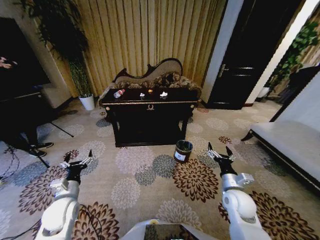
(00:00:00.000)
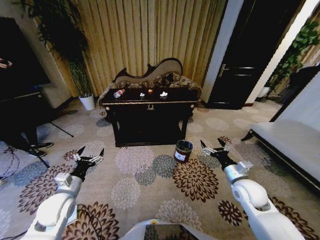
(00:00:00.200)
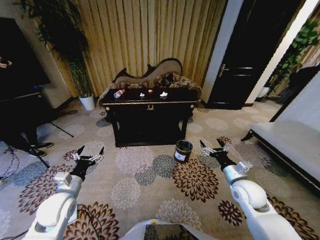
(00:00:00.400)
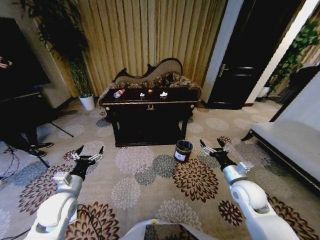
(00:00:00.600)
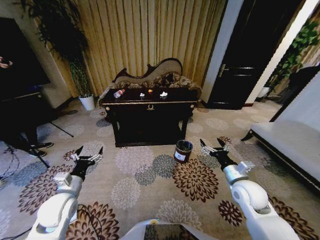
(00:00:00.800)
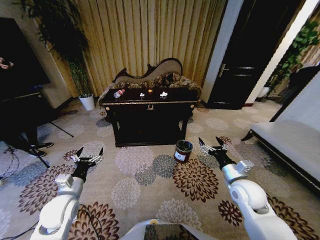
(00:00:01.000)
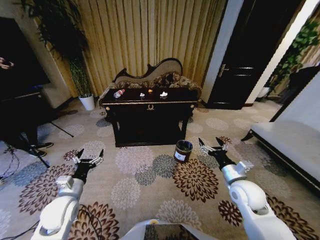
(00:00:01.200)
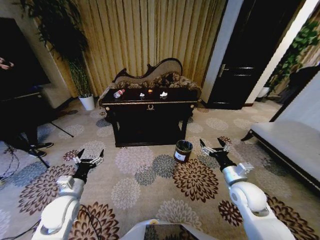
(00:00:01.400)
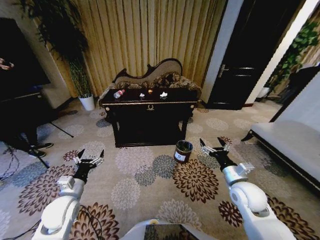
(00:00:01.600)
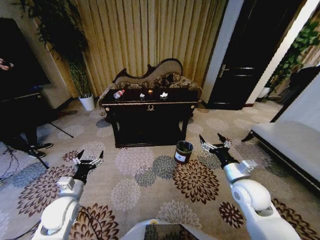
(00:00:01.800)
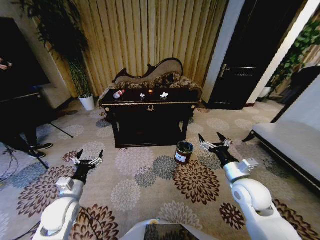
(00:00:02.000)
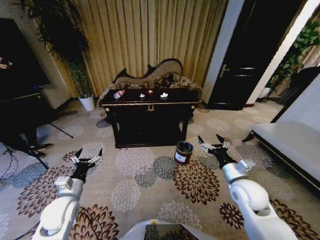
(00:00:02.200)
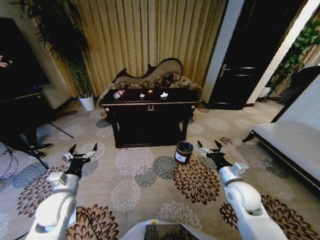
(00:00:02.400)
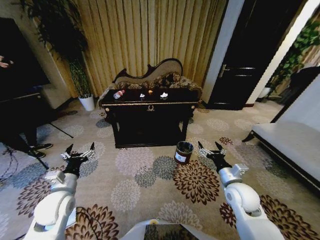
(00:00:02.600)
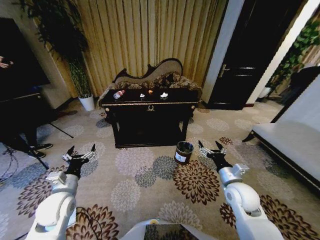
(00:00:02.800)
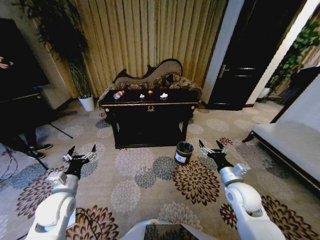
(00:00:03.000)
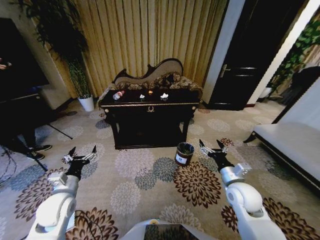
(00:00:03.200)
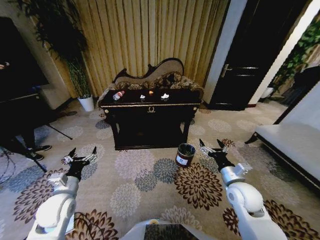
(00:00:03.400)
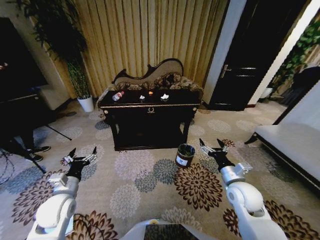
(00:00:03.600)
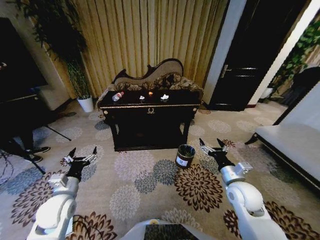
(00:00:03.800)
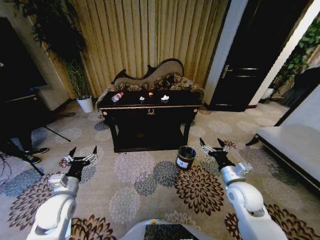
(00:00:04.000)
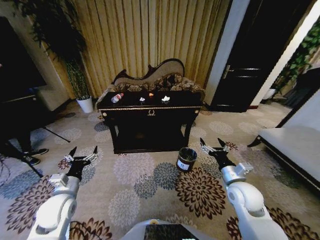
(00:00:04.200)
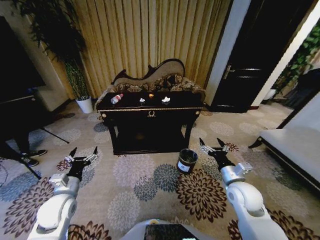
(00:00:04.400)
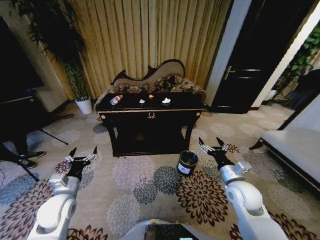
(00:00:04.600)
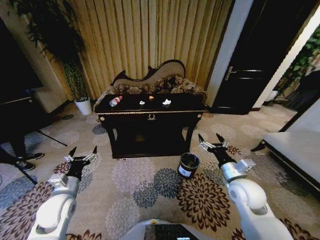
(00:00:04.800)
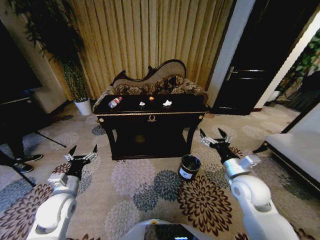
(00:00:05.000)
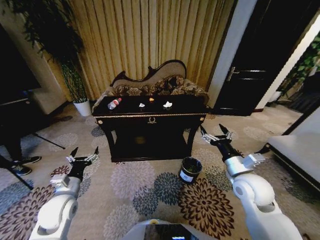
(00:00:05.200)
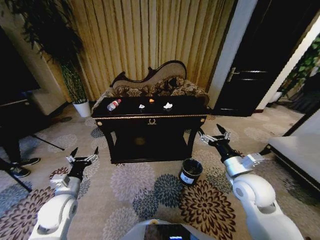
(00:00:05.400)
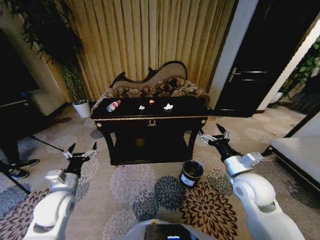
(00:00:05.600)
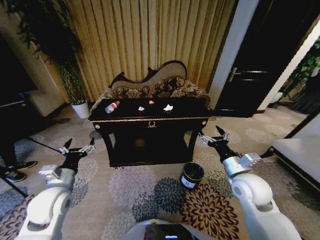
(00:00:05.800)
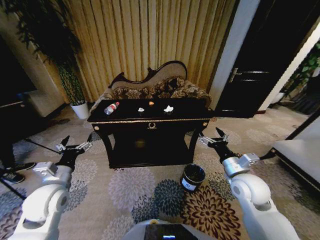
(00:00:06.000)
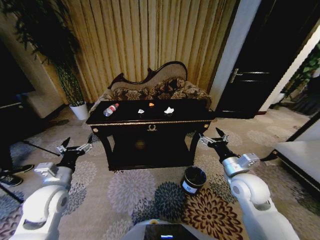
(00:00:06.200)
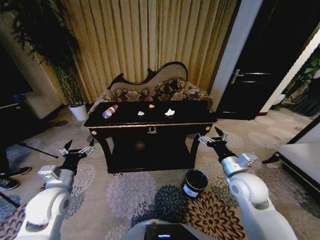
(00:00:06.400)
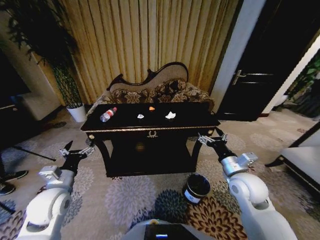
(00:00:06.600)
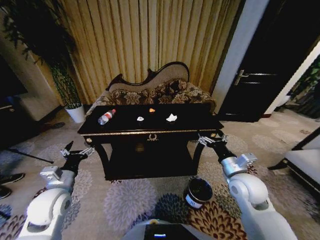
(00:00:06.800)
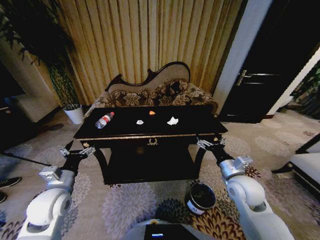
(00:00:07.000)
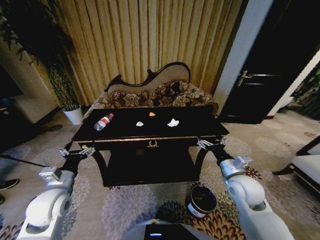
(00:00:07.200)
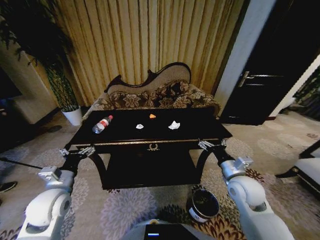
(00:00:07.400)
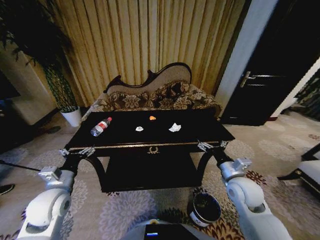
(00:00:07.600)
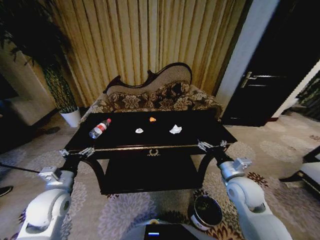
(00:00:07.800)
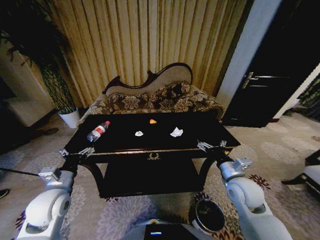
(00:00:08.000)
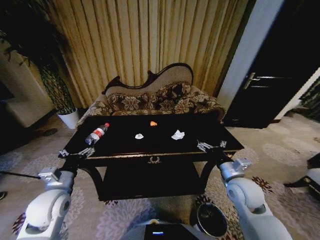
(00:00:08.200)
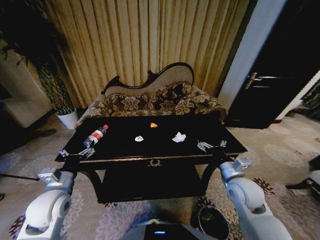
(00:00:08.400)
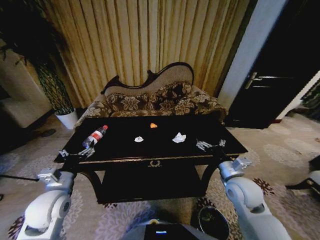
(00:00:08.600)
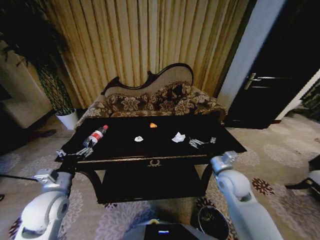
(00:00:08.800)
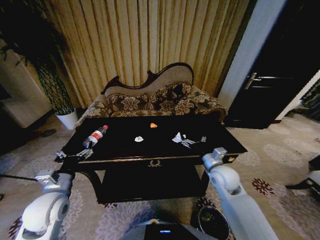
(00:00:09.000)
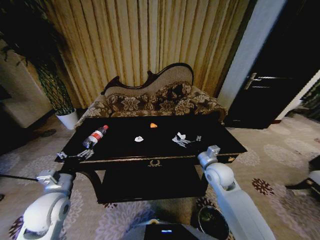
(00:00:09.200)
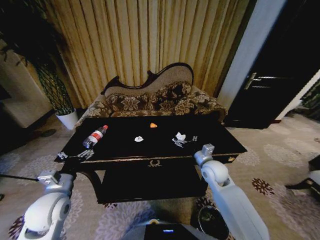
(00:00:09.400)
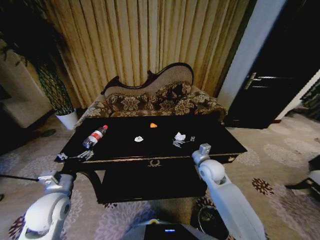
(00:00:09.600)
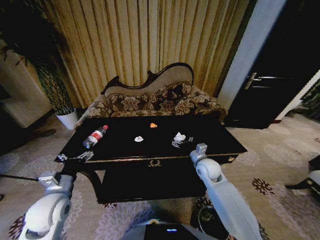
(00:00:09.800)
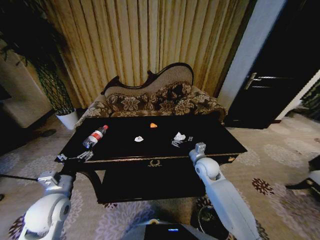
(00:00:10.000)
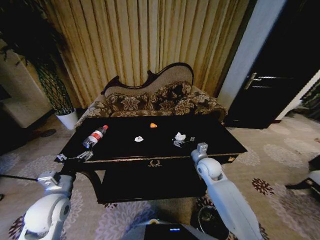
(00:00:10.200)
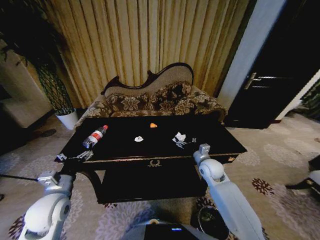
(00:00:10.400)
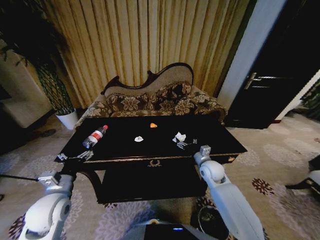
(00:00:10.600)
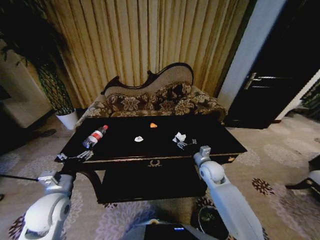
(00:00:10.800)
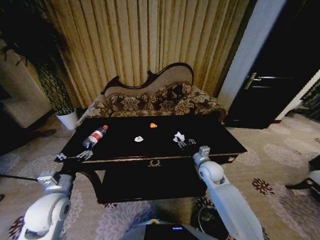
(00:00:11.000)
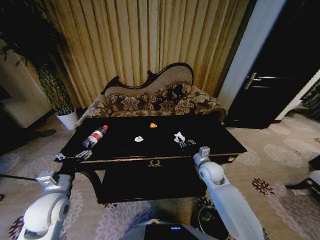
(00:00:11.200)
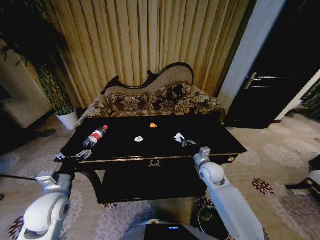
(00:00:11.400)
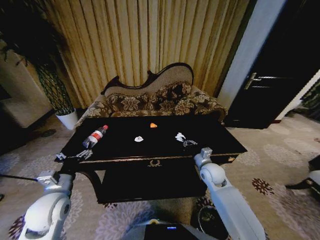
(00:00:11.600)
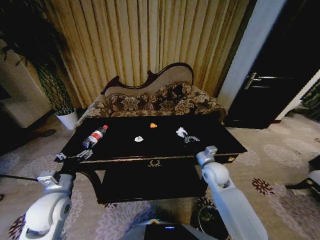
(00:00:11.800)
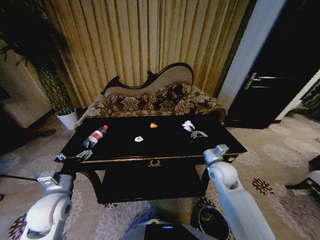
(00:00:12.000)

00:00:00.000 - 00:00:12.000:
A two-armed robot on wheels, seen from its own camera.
Task of the whole recording: Move to the front of the table and place the trash on the table into the trash bin.
00:00:01.600 - 00:00:03.000: There are only small adjustments of the grippers.
00:00:04.400 - 00:00:06.000: The left gripper heads upward, covering approximately 5 cm.
00:00:07.600 - 00:00:09.000: The right gripper moves about 5 cm.
00:00:09.000 - 00:00:10.400: The right gripper is displaced forward and downward by about 10 cm.
00:00:10.400 - 00:00:12.000: The right gripper changes place by approximately 5 cm, and closes its fingers.

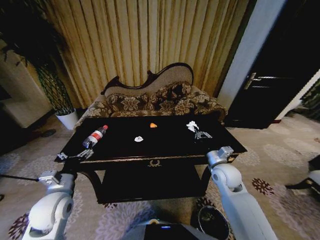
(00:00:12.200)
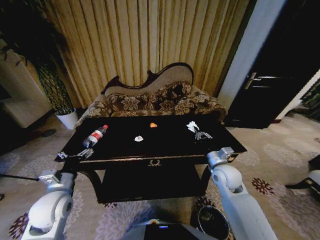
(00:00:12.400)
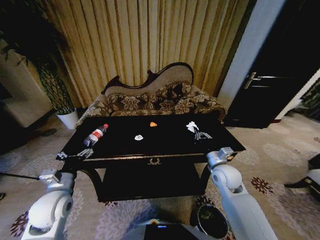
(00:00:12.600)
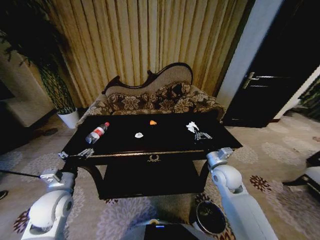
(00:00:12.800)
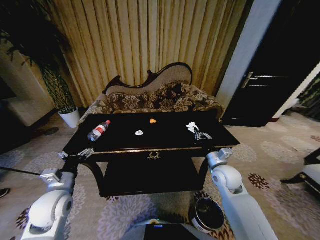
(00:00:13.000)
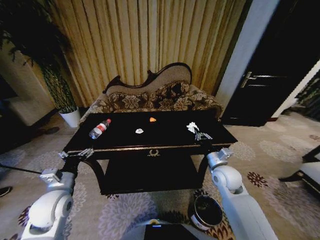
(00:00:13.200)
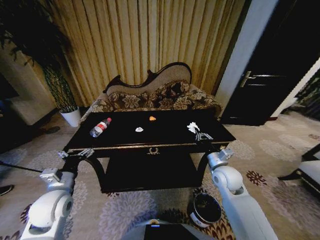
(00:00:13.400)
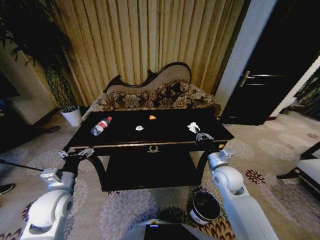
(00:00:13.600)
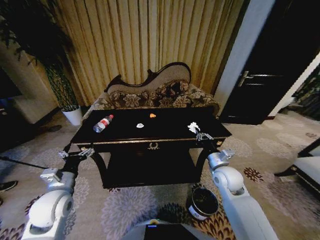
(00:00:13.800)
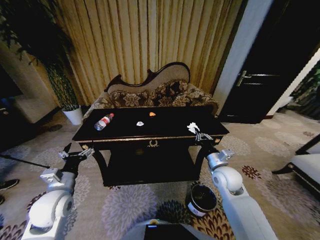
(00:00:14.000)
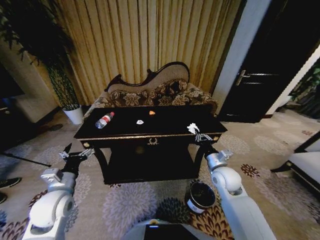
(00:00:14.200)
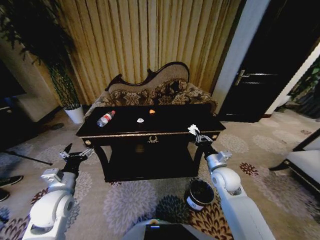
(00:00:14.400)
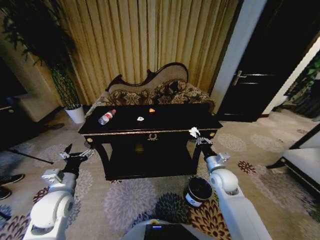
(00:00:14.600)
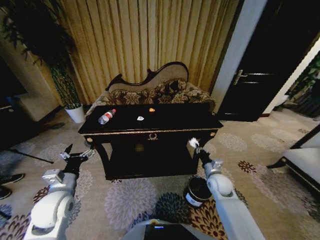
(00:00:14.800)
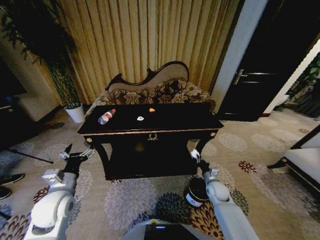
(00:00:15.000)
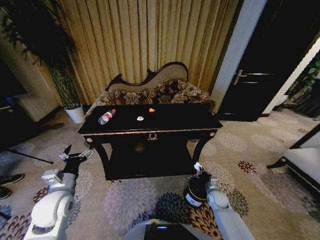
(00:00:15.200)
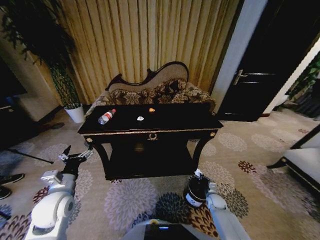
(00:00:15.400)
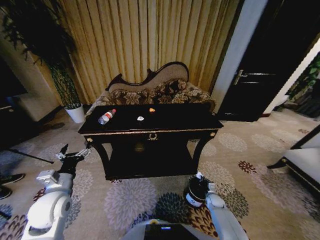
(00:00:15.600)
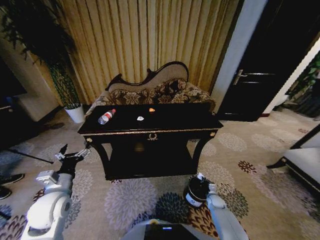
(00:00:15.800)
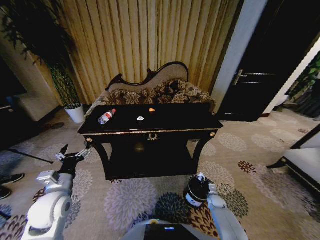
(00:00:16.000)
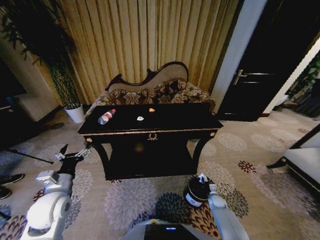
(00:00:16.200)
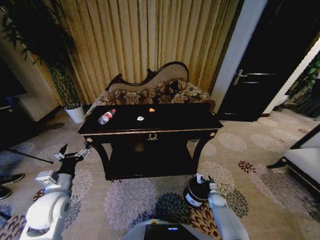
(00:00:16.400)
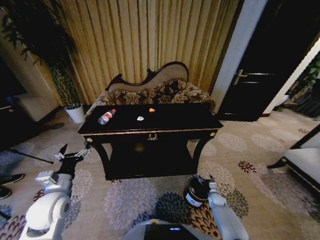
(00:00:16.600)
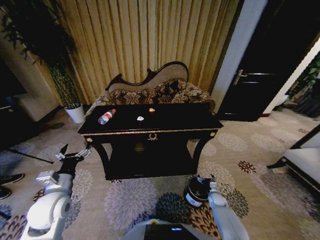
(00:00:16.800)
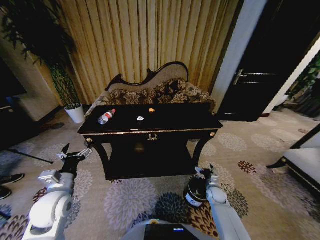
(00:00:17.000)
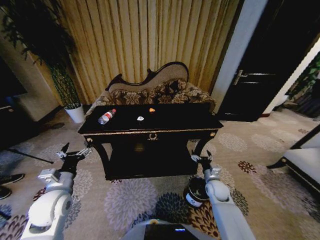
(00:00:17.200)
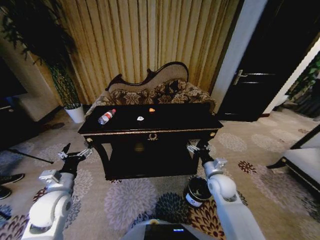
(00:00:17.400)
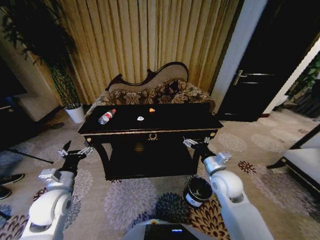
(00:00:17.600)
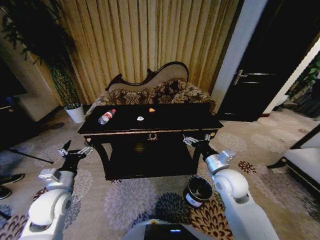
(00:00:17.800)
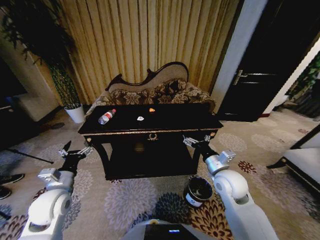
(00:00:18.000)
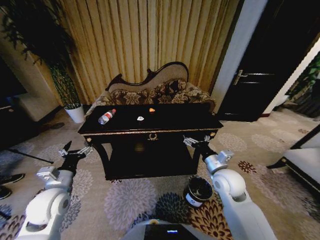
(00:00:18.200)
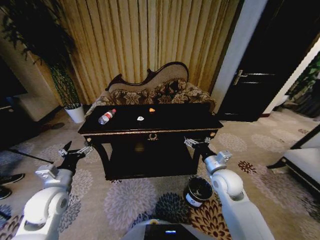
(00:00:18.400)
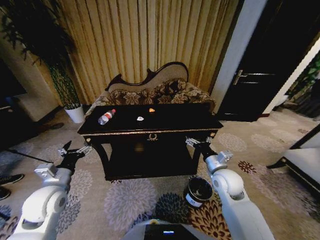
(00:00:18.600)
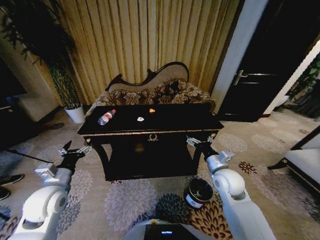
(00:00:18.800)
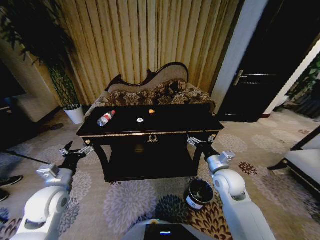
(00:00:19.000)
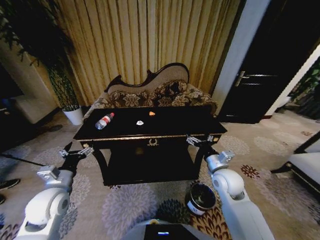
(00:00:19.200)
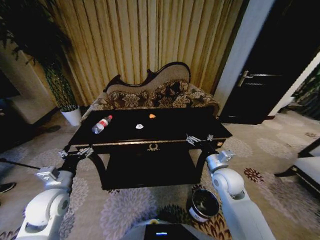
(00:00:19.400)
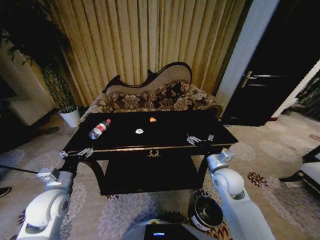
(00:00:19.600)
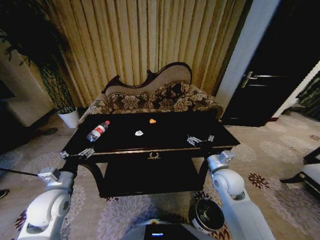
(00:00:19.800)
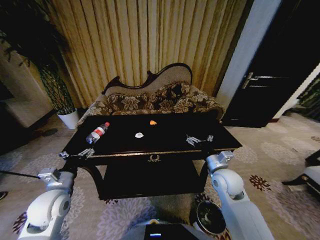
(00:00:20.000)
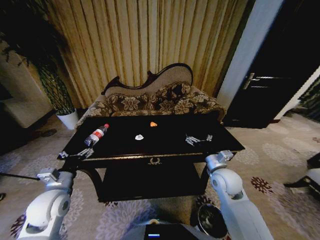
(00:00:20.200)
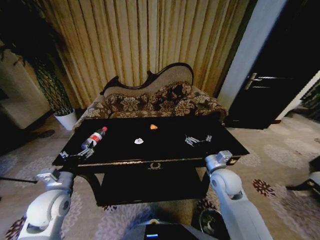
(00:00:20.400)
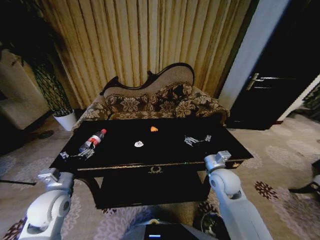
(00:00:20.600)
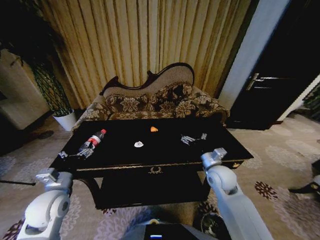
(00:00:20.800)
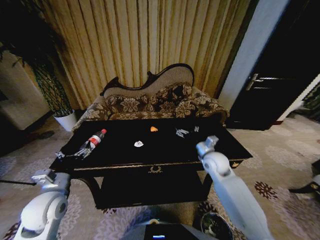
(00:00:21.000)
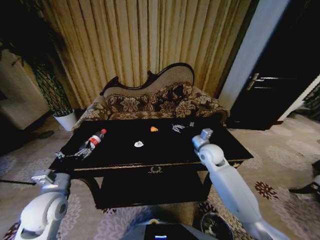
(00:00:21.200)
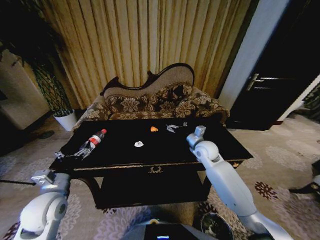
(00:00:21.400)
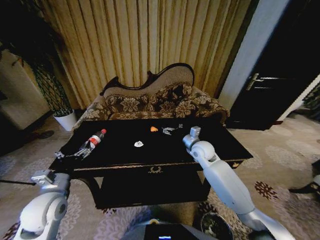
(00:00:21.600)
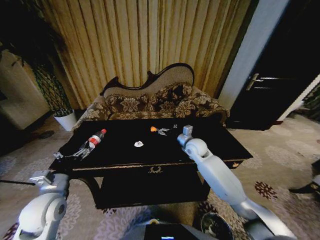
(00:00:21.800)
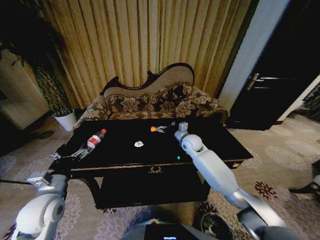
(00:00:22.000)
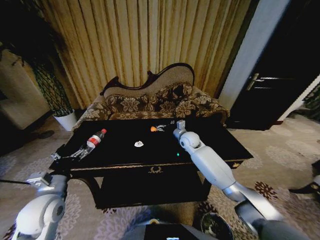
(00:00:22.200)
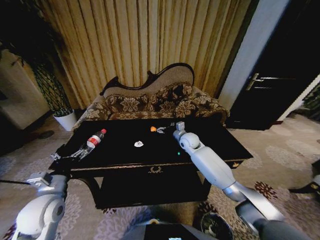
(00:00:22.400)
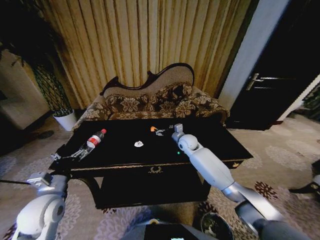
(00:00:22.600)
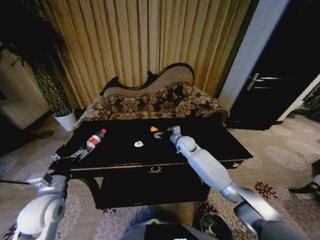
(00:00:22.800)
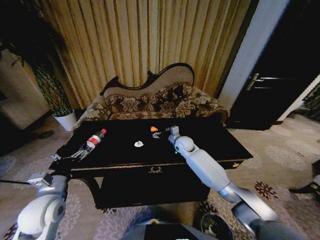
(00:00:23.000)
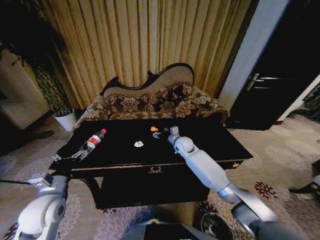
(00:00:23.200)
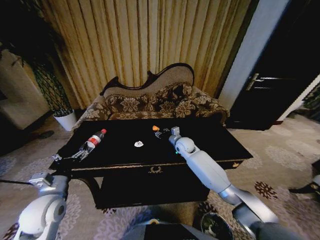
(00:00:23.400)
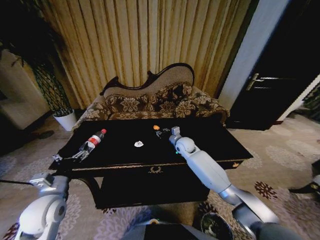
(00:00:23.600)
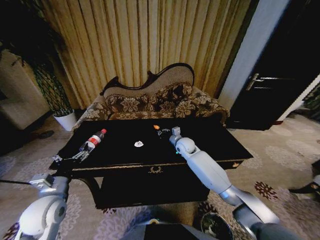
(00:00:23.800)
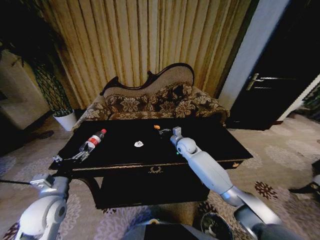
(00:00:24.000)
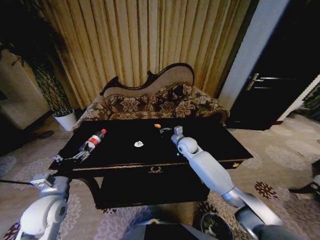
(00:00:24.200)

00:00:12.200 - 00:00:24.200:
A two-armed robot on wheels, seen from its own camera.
Task of the whole recording: Move to the front of the table and place the trash on the table into the trash bin.
00:00:13.800 - 00:00:15.200: The right gripper heads downward, covering about 25 cm.
00:00:15.200 - 00:00:16.600: The right gripper moves downward, about 10 cm, and opens its fingers.
00:00:16.600 - 00:00:18.200: The right gripper travels upward by approximately 35 cm.
00:00:19.800 - 00:00:21.200: The right gripper travels forward by some 10 cm.
00:00:21.200 - 00:00:22.600: The right gripper goes about 10 cm forward and to the left.
00:00:22.600 - 00:00:24.200: The right gripper closes up.
